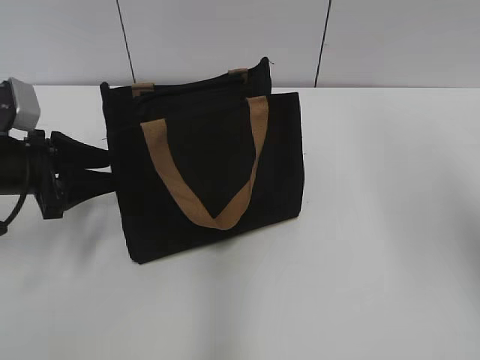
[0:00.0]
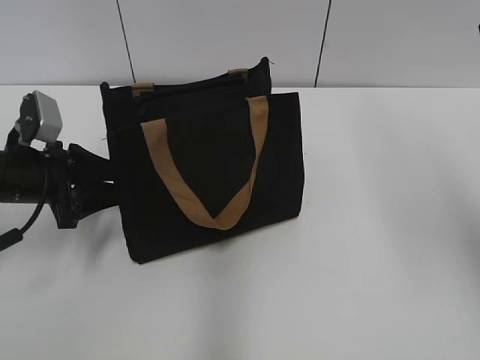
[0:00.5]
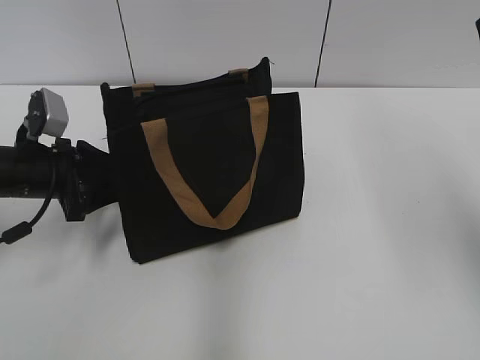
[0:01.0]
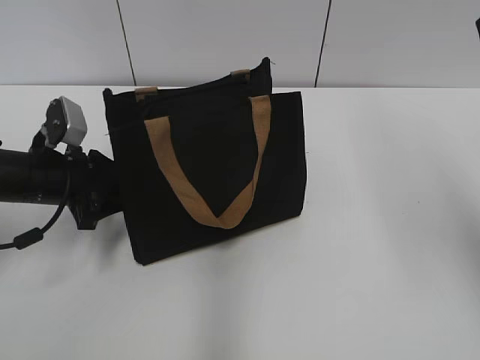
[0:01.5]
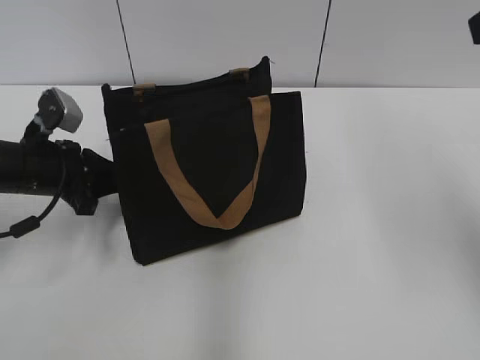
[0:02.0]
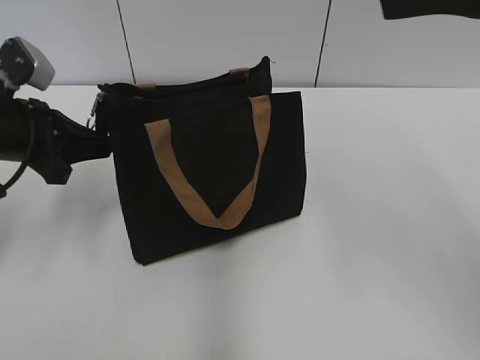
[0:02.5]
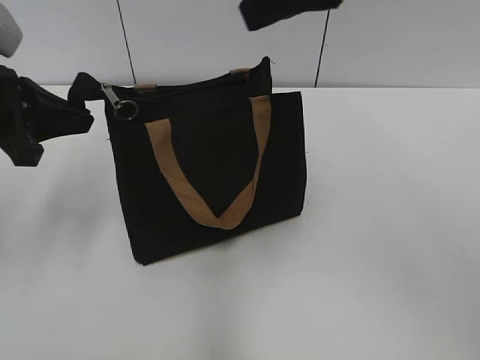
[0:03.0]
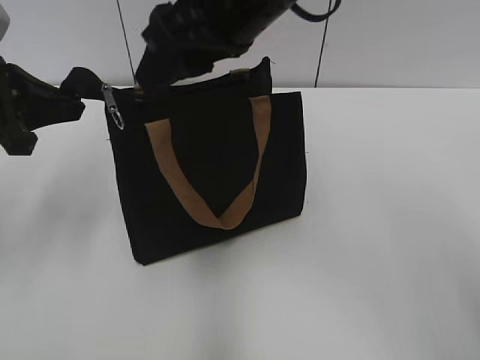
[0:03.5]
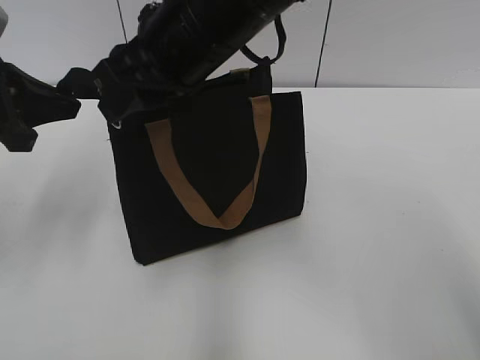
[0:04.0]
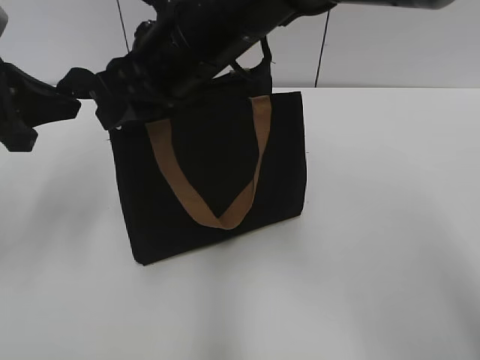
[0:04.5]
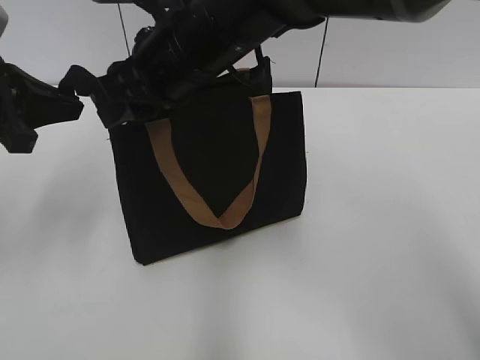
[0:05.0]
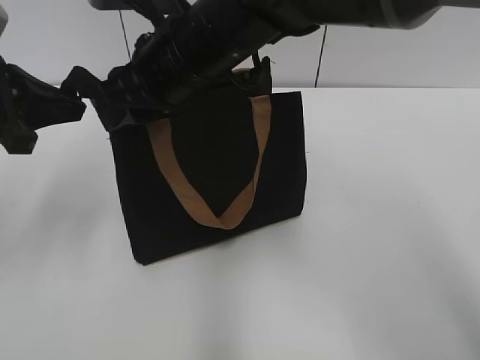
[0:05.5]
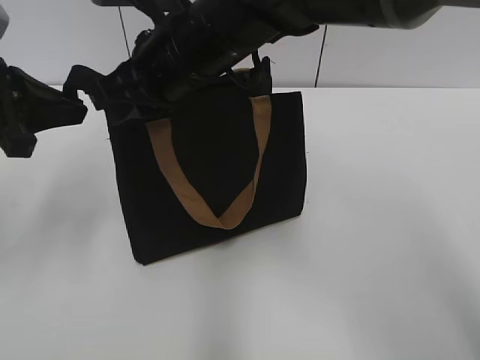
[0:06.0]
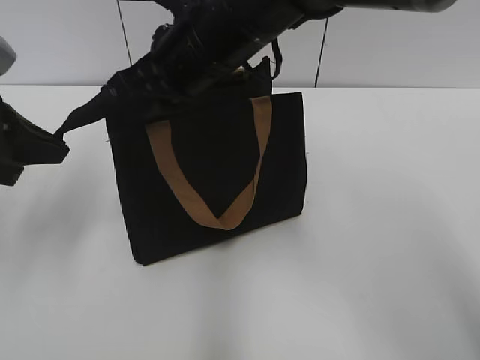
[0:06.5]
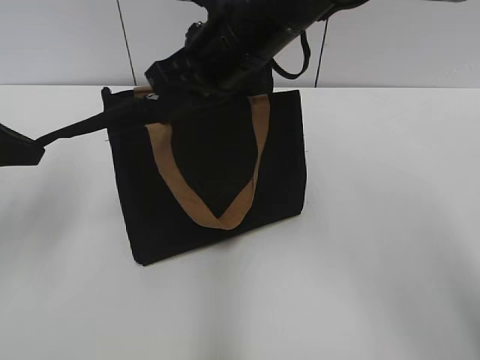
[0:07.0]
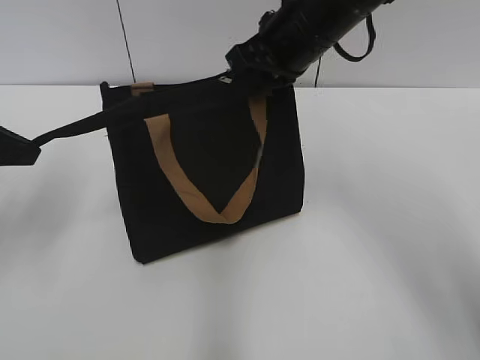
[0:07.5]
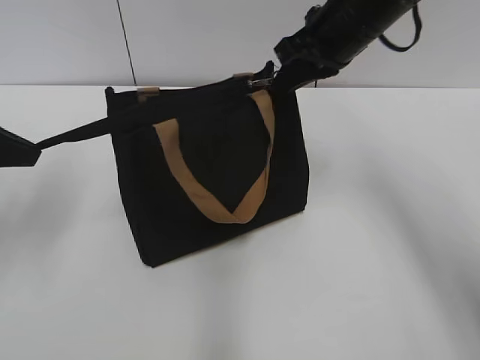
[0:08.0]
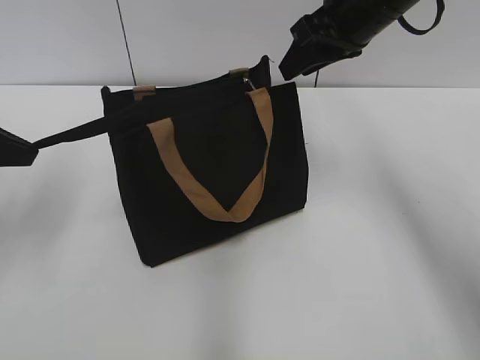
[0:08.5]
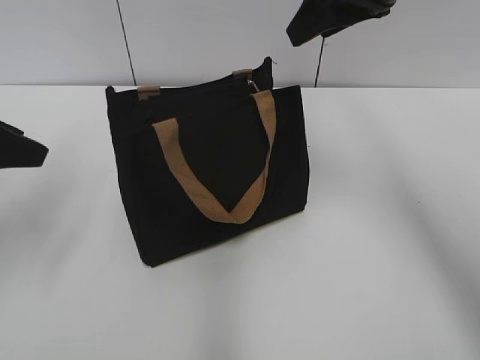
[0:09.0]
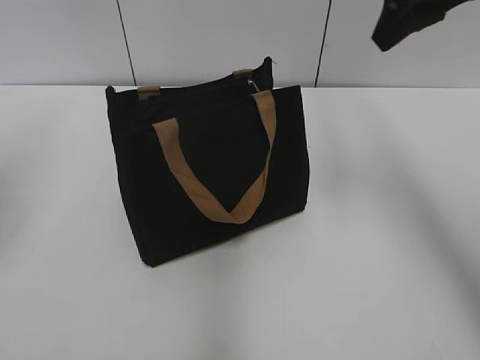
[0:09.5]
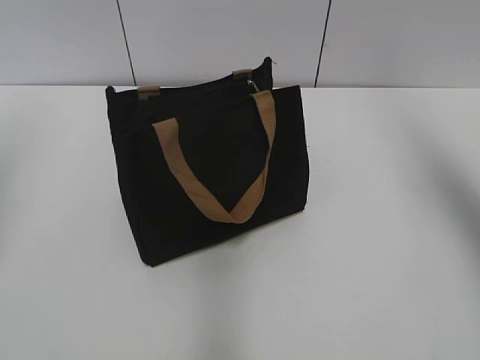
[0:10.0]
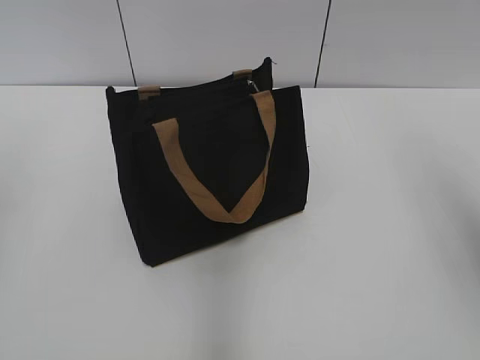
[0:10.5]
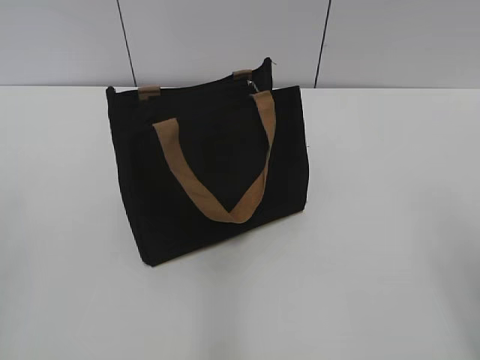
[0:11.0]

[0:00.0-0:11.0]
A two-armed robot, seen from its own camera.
Step, 0:00.0 to 0:08.0: Zip up the bag with your right hand.
0:00.0 to 0:02.0: The left gripper closes up.
0:02.0 to 0:03.5: The left gripper heads upward, covering approximately 15 cm, while the right gripper heads to the left, covering about 25 cm.
0:03.5 to 0:05.5: The right gripper is displaced downward and to the left by approximately 10 cm.
0:05.5 to 0:07.5: The right gripper heads to the right and forward, covering some 10 cm, and closes.
0:07.5 to 0:09.0: The left gripper opens its fingers, while the right gripper moves to the right and upward, about 10 cm, and opens its fingers.
0:09.0 to 0:11.0: The left gripper moves backward, about 20 cm. Meanwhile the right gripper travels backward and to the right by about 30 cm.

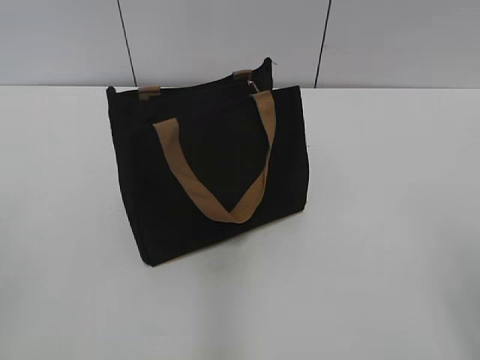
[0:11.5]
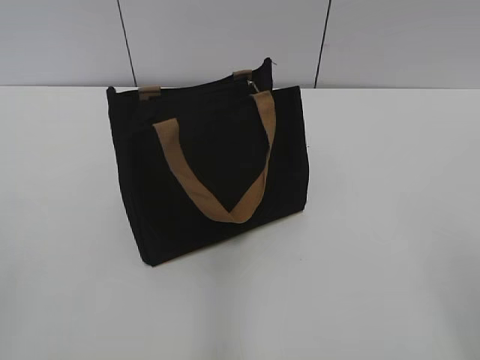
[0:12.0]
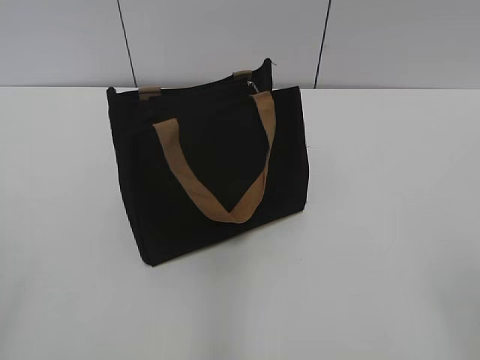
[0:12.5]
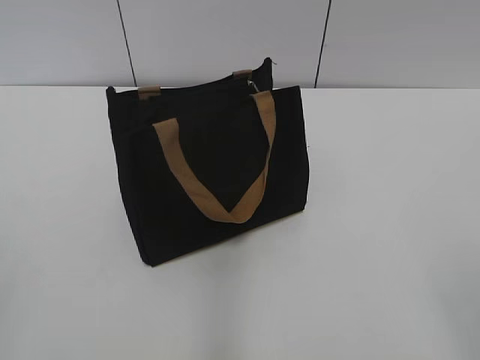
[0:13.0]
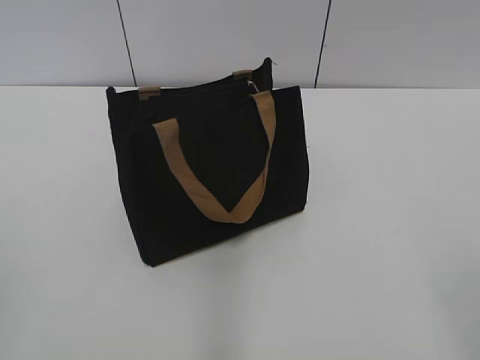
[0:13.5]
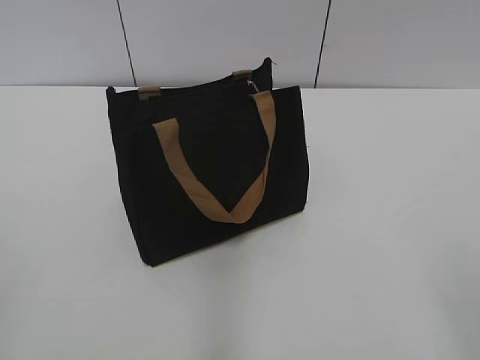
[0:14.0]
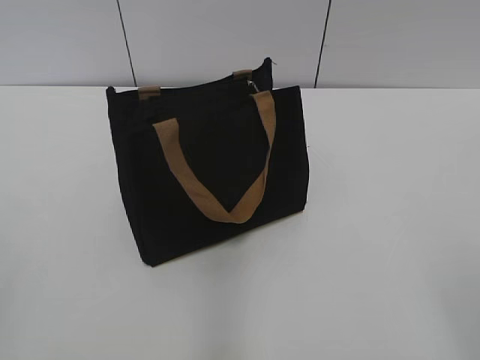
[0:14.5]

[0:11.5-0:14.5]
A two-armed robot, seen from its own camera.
0:13.0 to 0:14.5: Both grippers stay put.

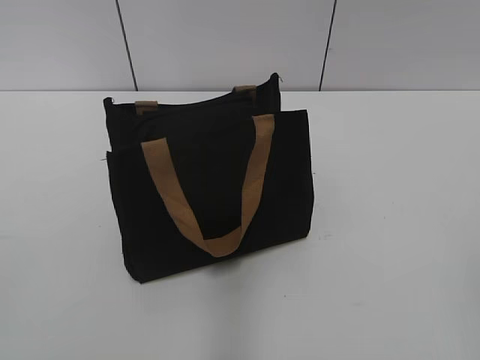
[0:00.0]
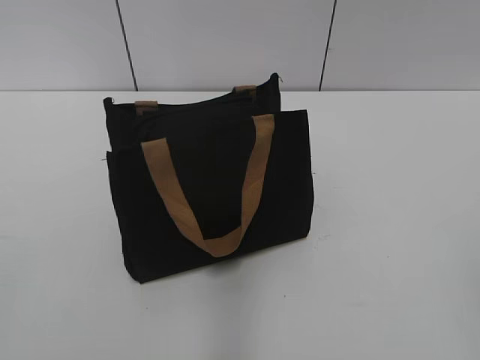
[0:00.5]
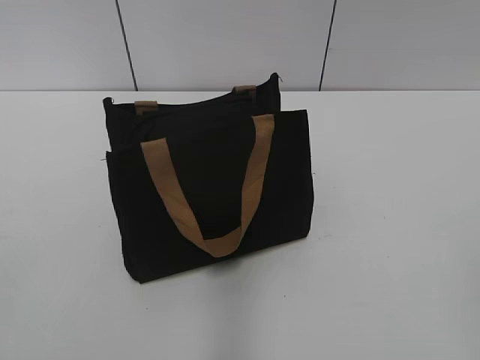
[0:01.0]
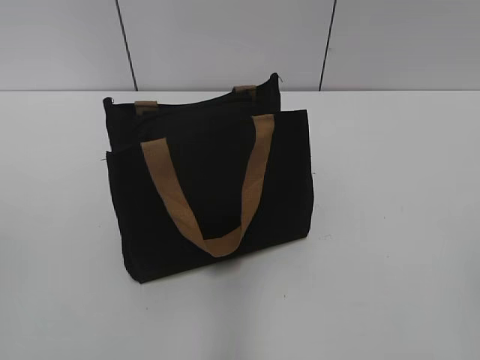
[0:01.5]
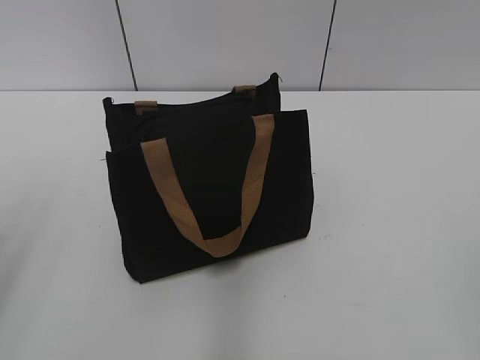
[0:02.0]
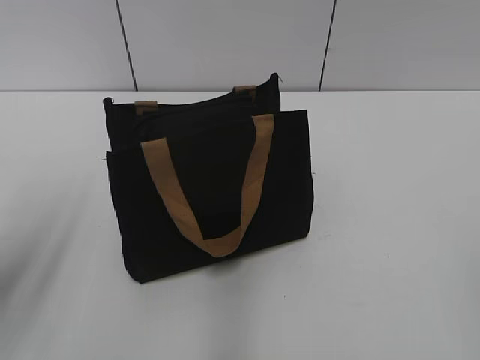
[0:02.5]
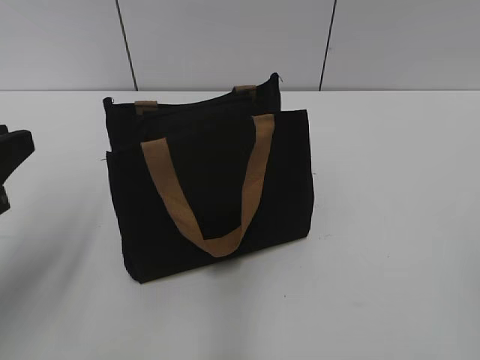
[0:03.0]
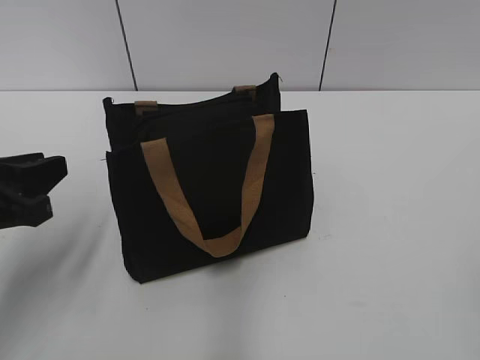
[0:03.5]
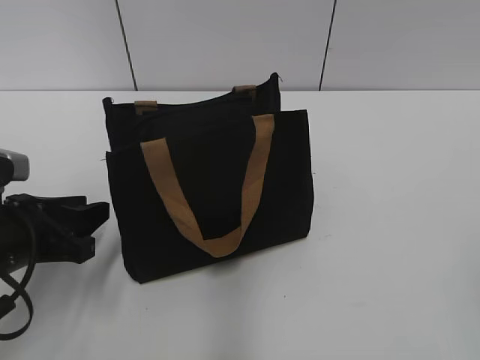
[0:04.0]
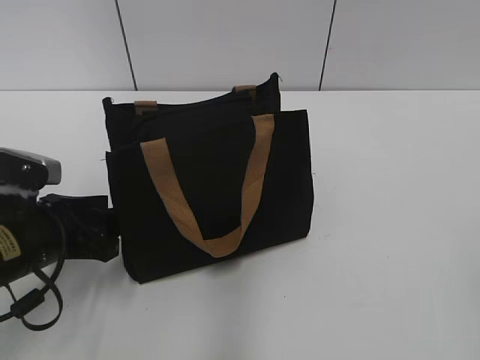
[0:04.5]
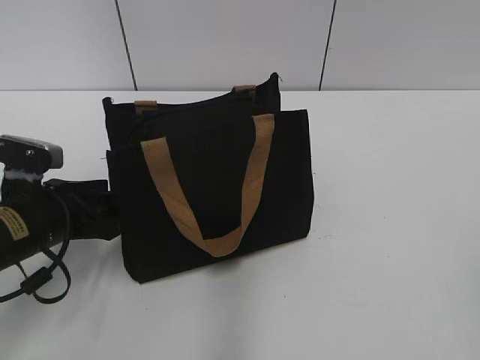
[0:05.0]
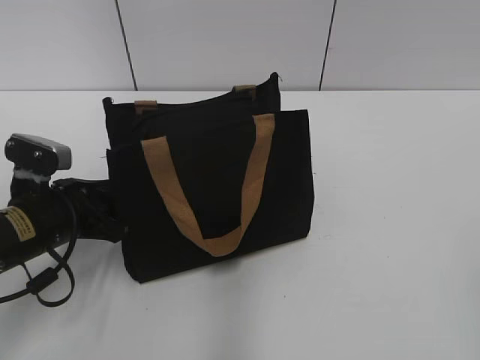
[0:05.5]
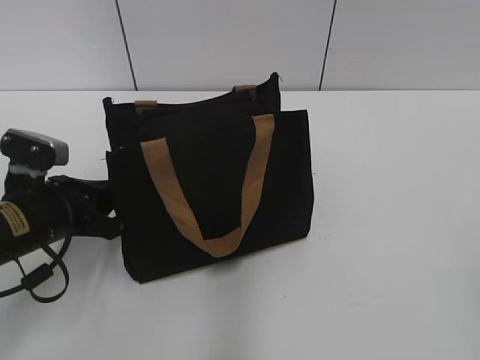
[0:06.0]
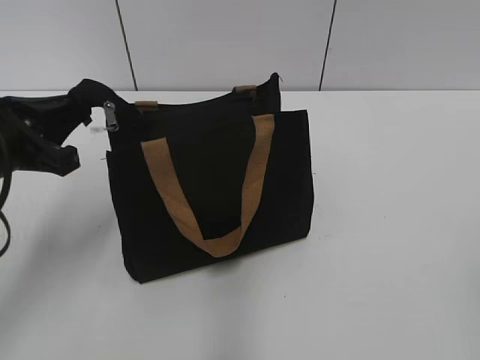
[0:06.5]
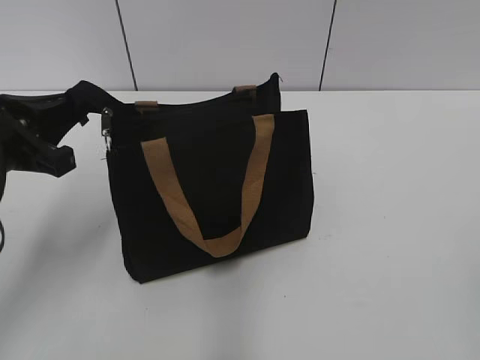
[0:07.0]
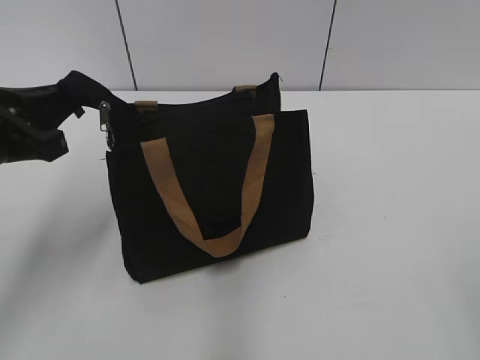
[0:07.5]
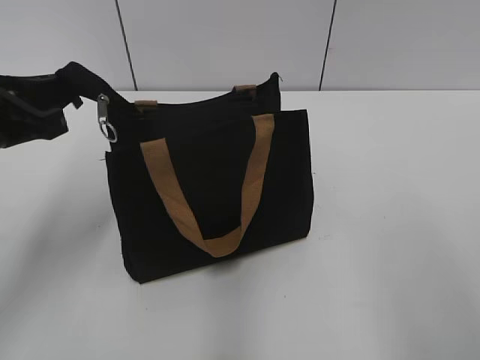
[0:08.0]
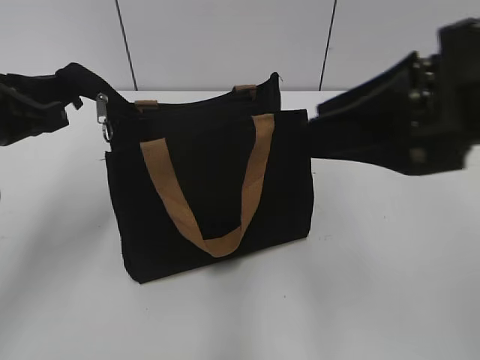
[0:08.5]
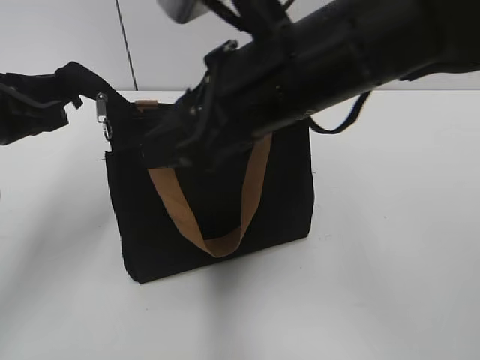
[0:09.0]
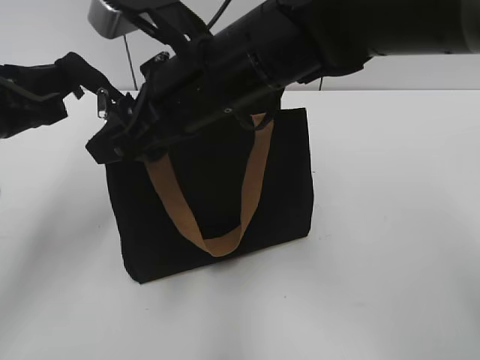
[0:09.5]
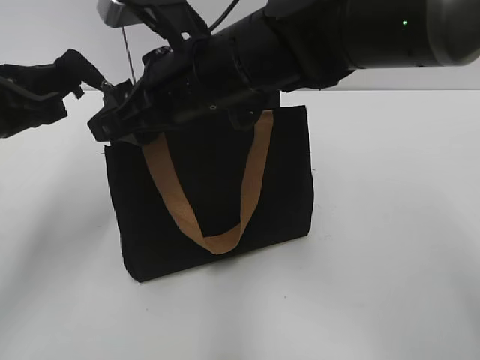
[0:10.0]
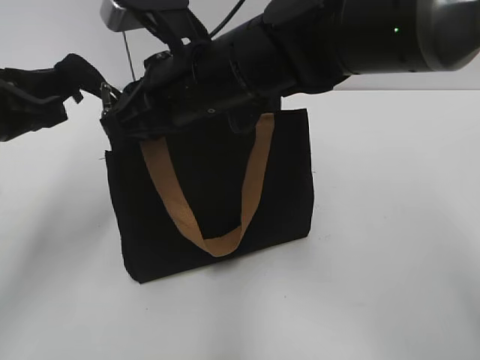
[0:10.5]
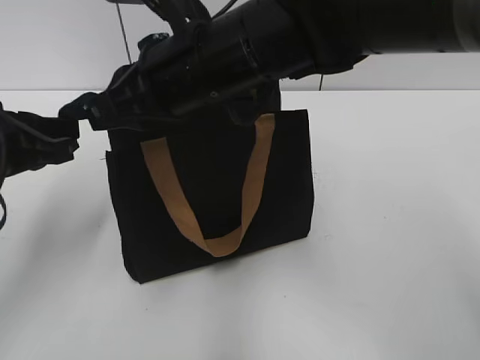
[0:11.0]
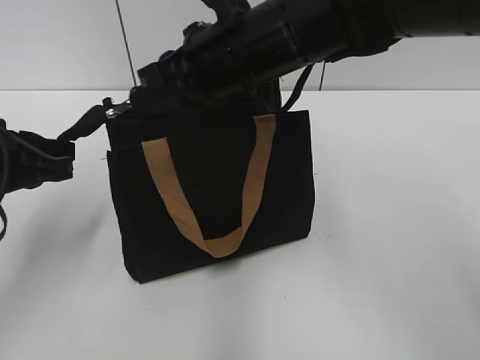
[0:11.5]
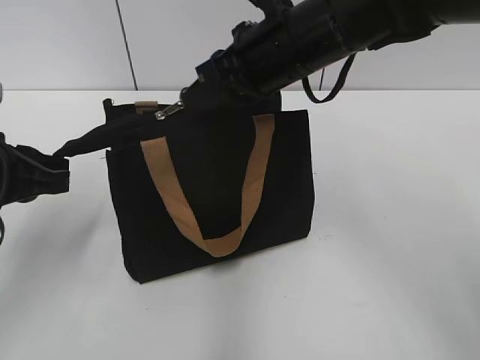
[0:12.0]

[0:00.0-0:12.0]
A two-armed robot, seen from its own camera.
0:02.0 to 0:04.0: The left gripper shifts some 20 cm downward, forward and to the right.
0:04.0 to 0:06.0: The left gripper changes place by some 5 cm, and closes its fingers.
0:06.0 to 0:08.0: The left gripper is displaced upward by roughly 15 cm. The right gripper heads forward, covering about 5 cm.
0:08.0 to 0:10.0: The right gripper shifts about 35 cm to the left and forward.
0:10.0 to 0:12.0: The right gripper moves to the right, roughly 5 cm, and closes its fingers.
